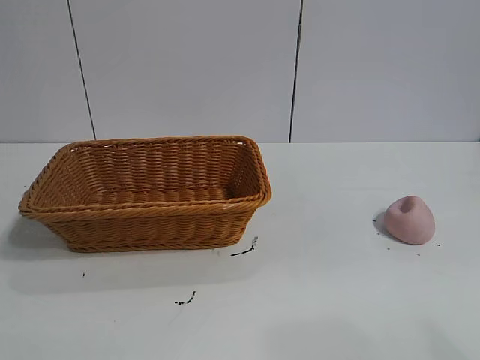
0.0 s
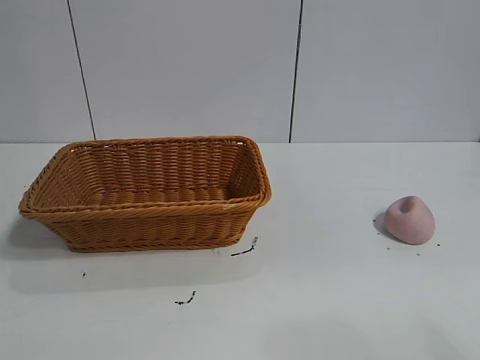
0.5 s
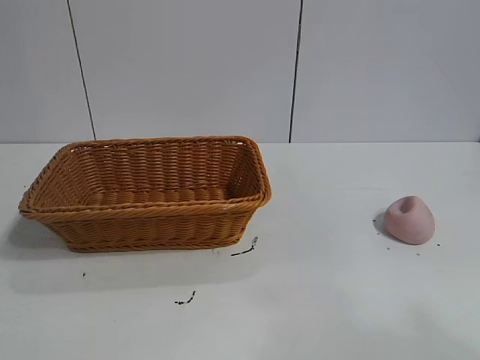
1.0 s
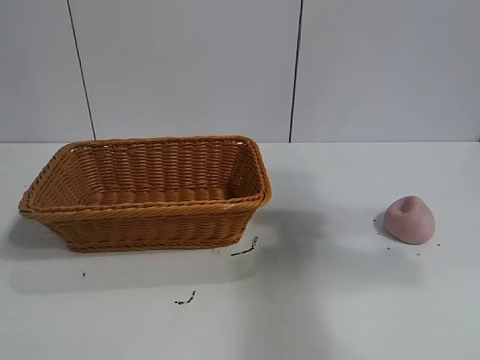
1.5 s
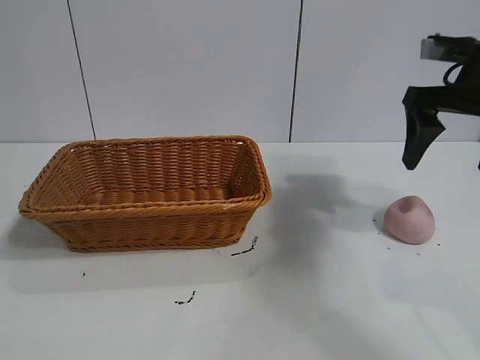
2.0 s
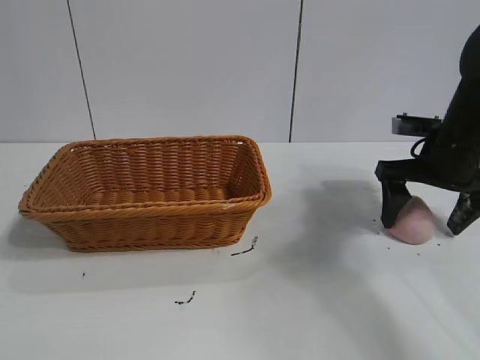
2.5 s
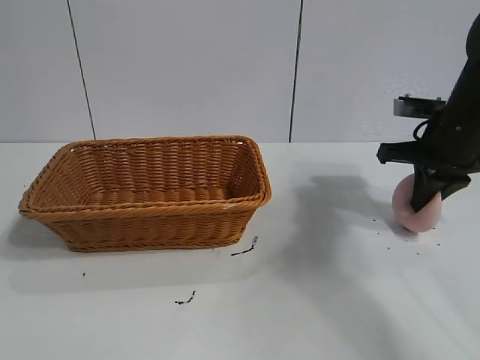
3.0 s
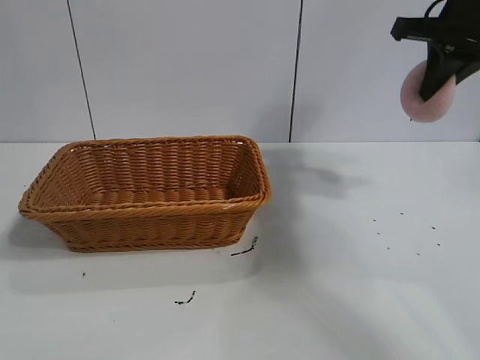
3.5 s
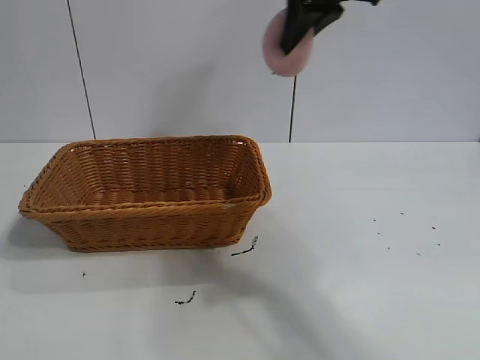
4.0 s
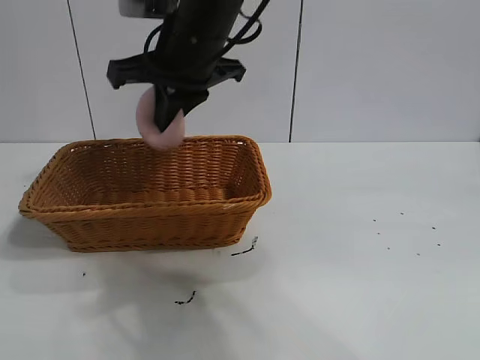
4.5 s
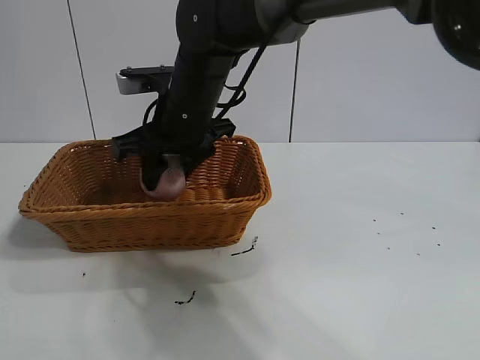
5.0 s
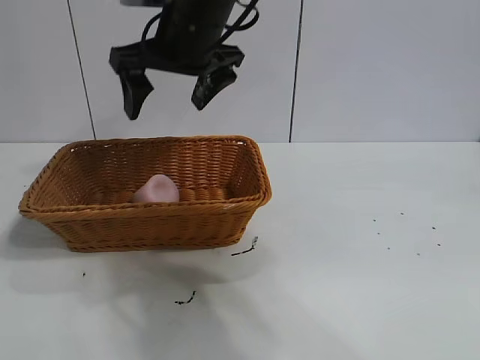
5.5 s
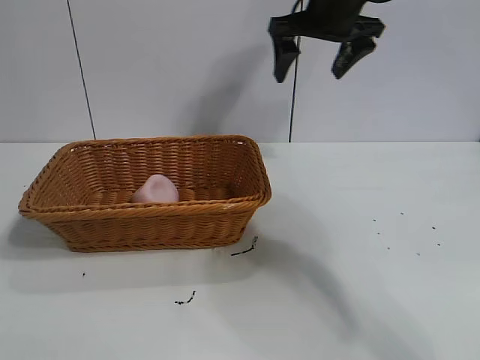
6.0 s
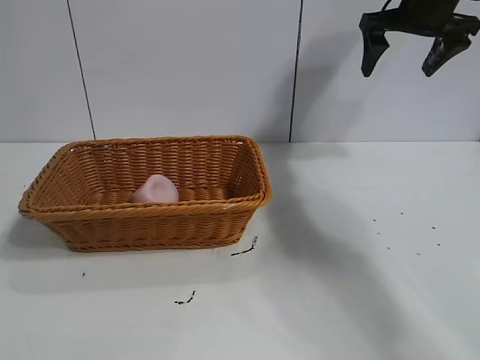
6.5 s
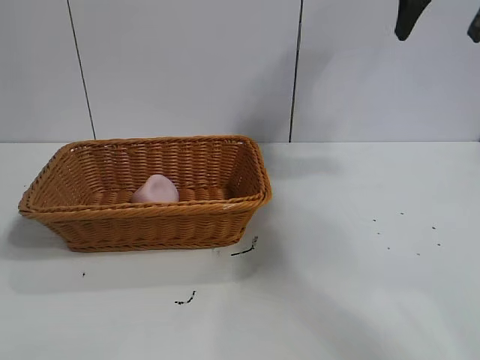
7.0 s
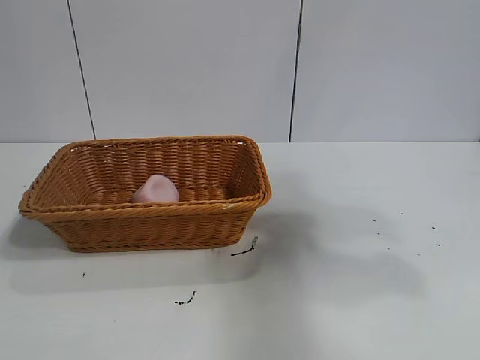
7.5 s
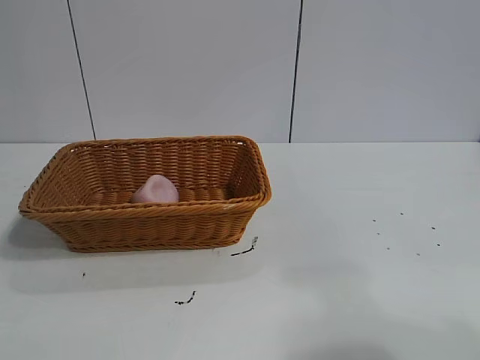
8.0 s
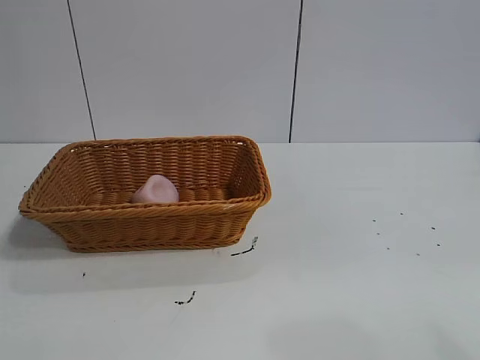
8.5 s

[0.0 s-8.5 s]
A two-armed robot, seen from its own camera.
Task of the whole recording: pick up the peach and put it into the basket.
Step, 1.0 to 2.5 s: Grasp the peach with right gripper.
Step, 3.5 to 5.0 s: Place the peach in the basket with right gripper.

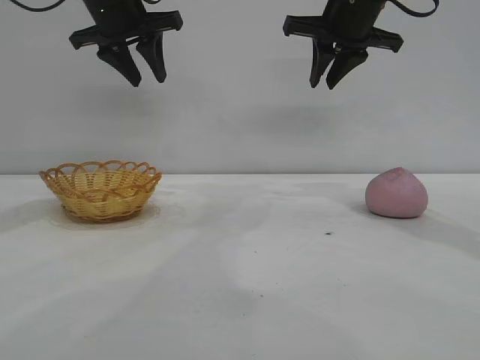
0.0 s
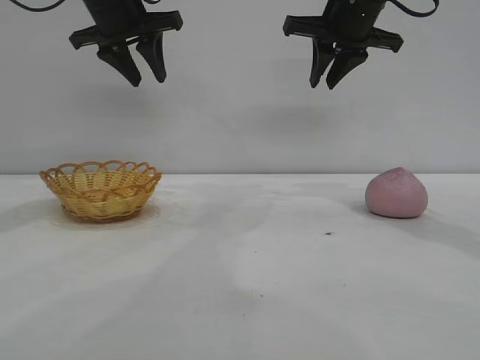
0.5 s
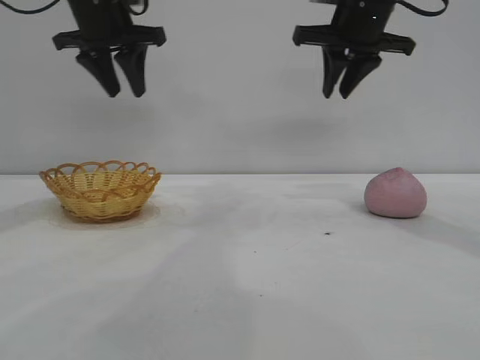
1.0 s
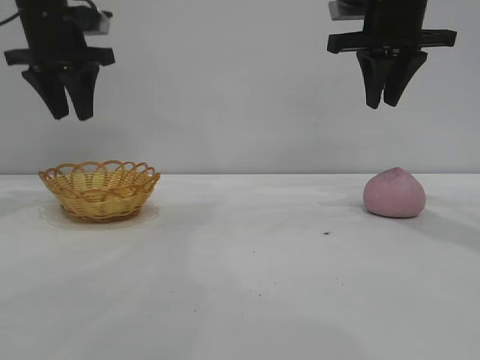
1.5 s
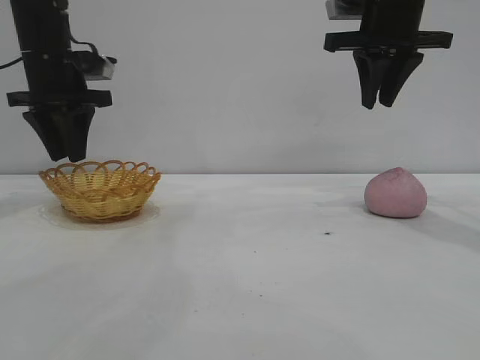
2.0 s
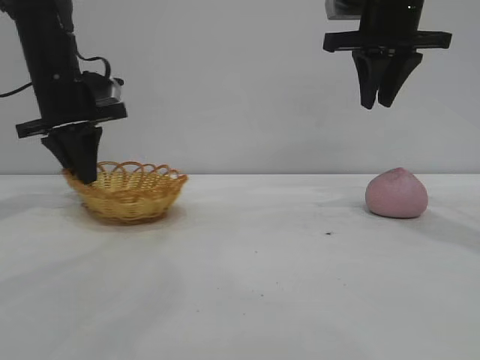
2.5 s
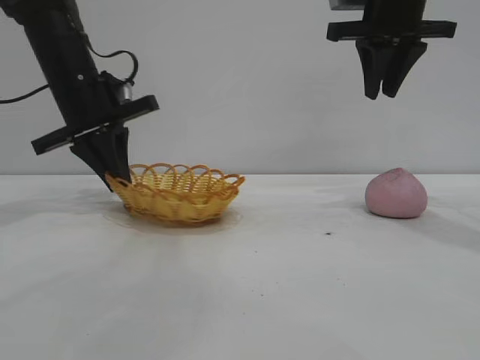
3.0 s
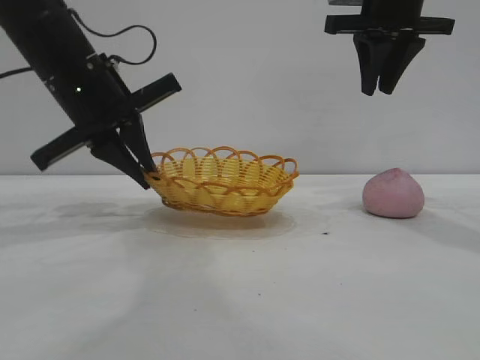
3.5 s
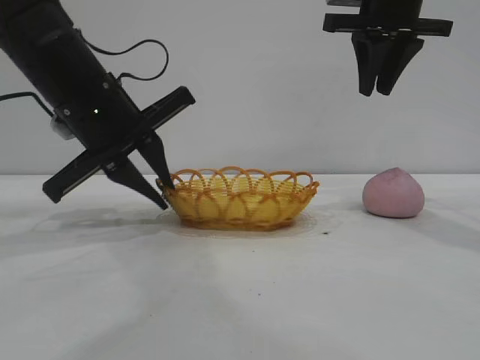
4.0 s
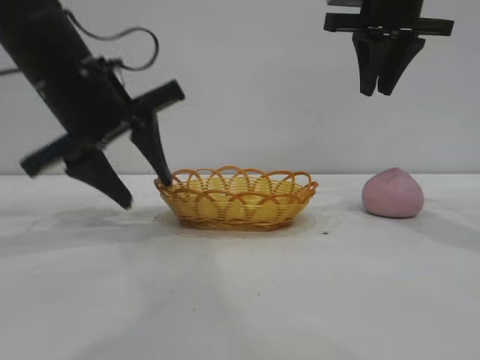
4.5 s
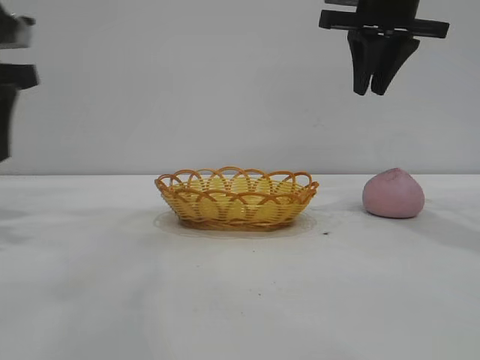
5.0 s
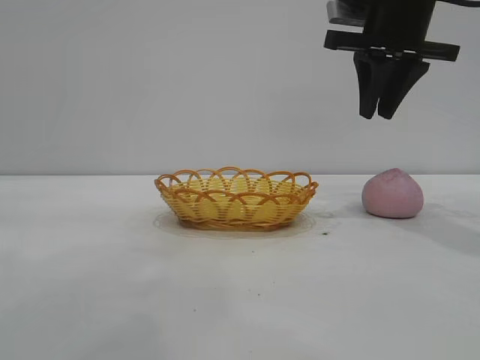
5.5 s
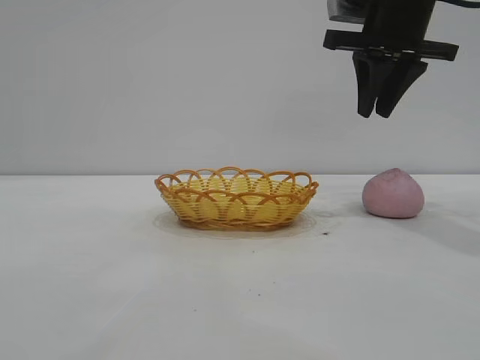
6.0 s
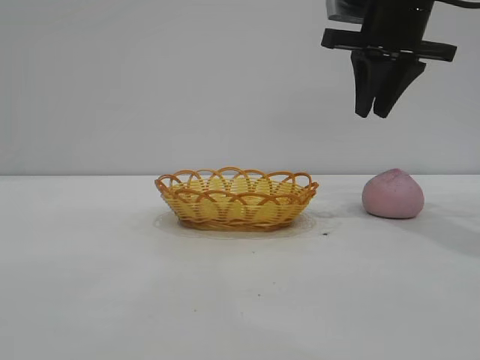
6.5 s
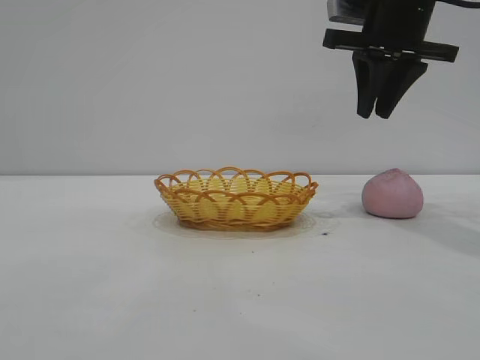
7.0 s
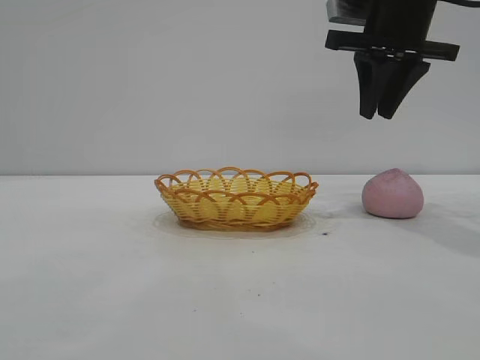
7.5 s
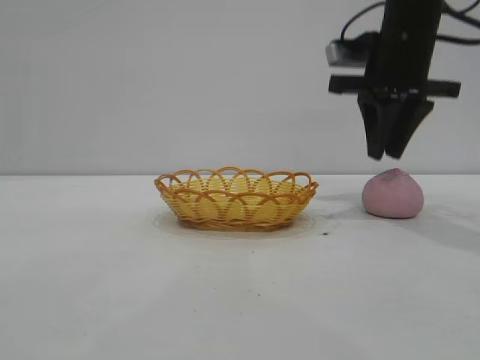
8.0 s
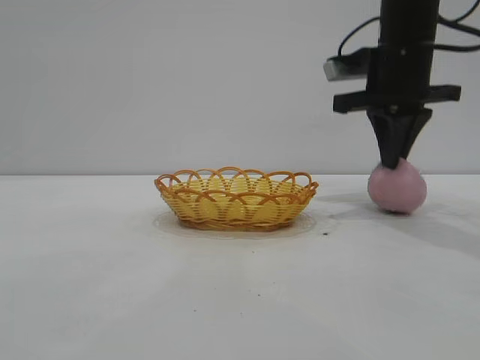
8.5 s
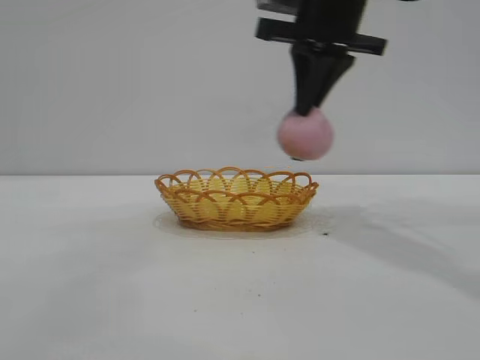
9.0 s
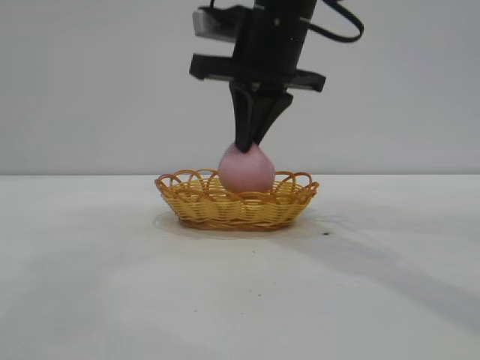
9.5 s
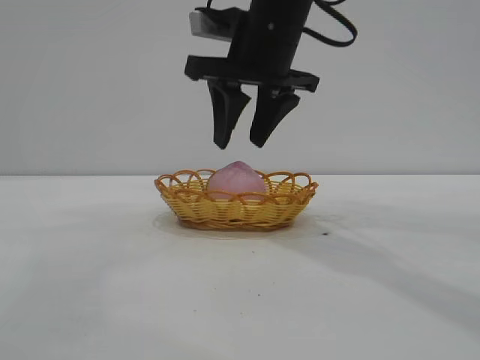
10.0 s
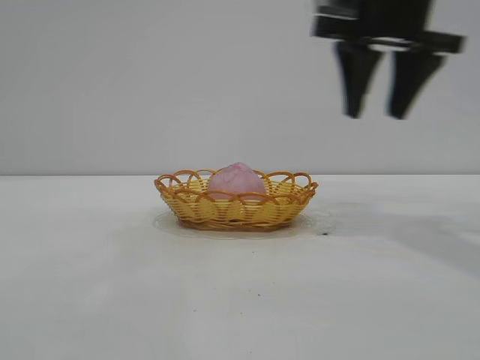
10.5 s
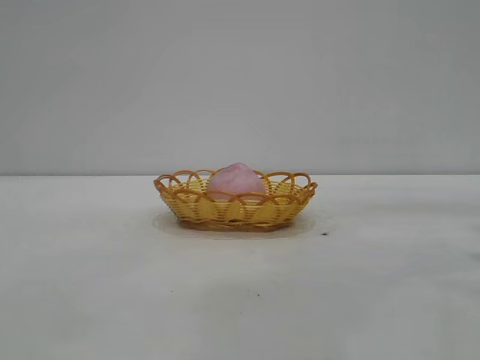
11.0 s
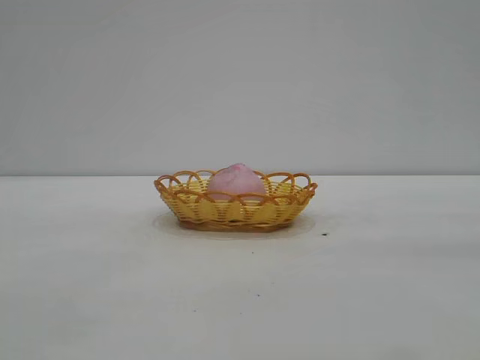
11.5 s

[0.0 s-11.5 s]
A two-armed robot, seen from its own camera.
Task of the whole recording: pick up the peach and put it into the basket.
Step, 0.0 to 4.5 s: Move the basket to the center of view.
Step, 5.0 to 8.5 s: Pick up the peach.
Step, 9.0 to 10.0 s: place the peach into the basket.

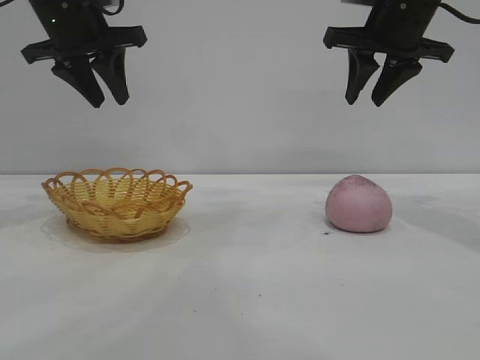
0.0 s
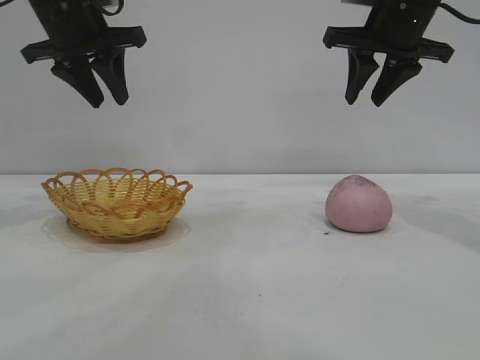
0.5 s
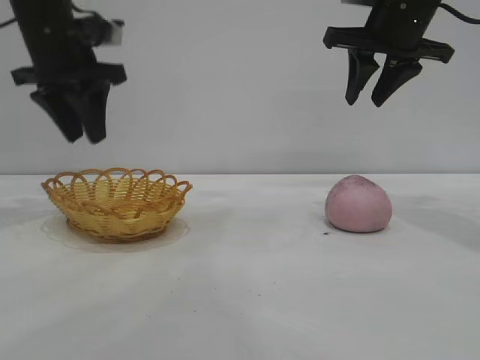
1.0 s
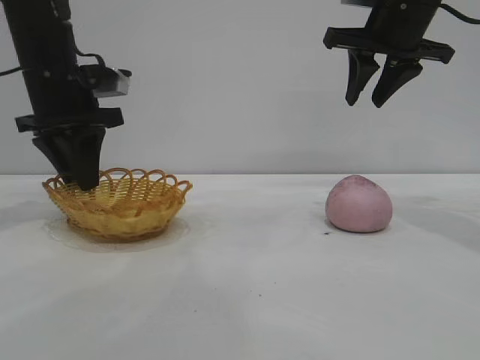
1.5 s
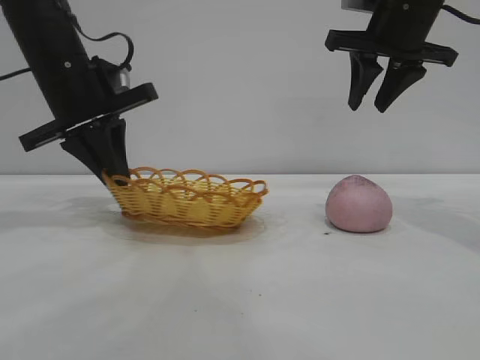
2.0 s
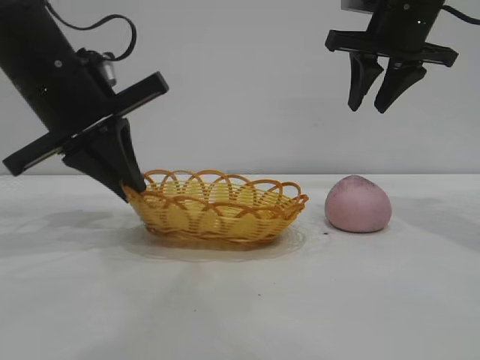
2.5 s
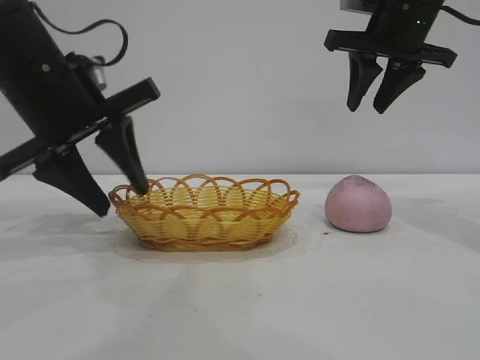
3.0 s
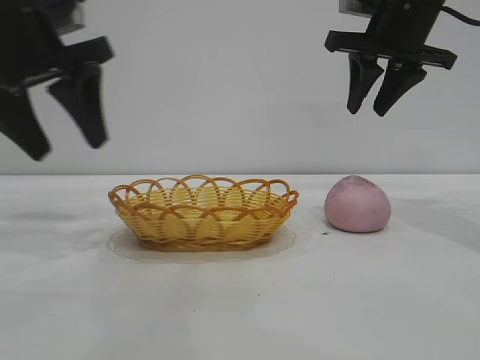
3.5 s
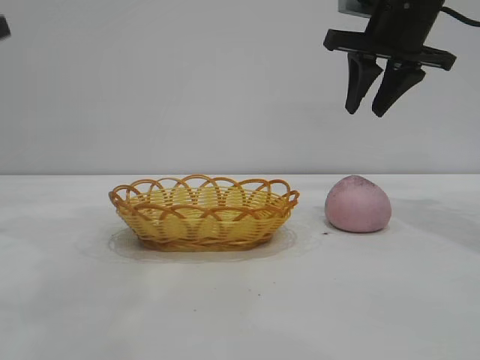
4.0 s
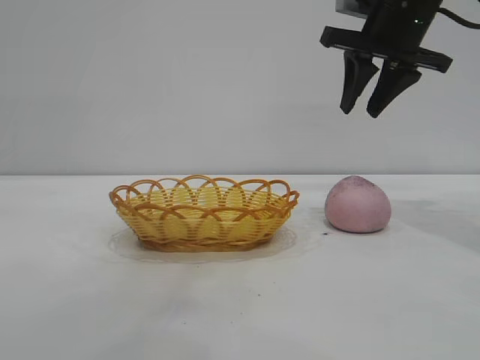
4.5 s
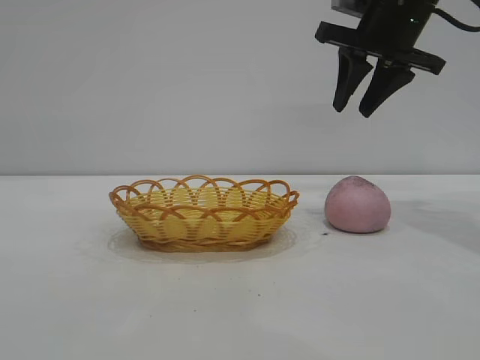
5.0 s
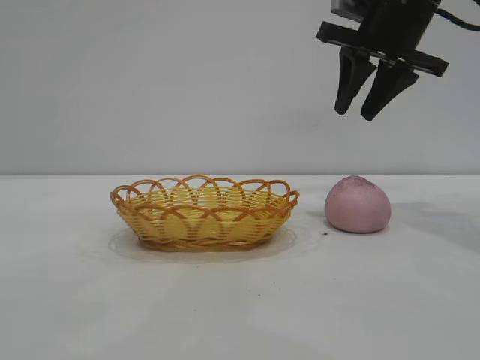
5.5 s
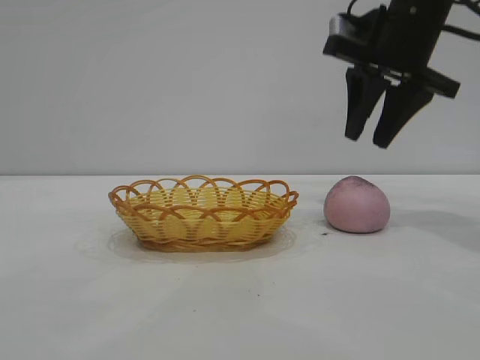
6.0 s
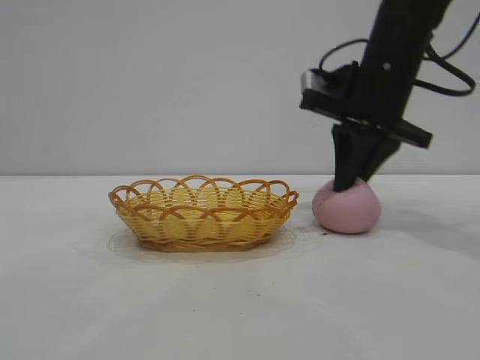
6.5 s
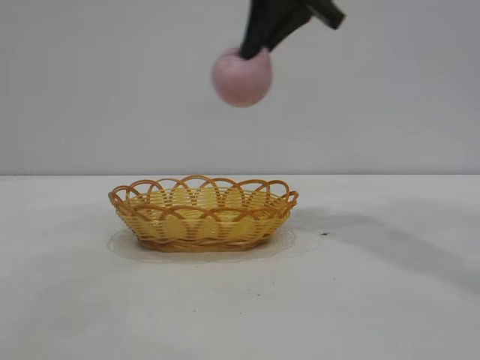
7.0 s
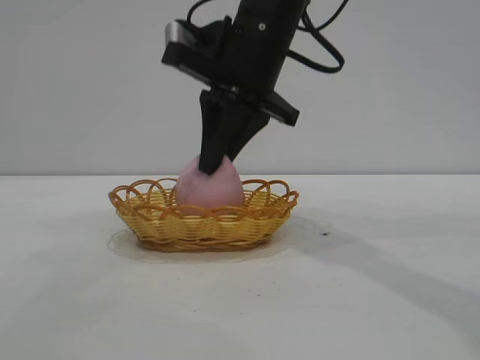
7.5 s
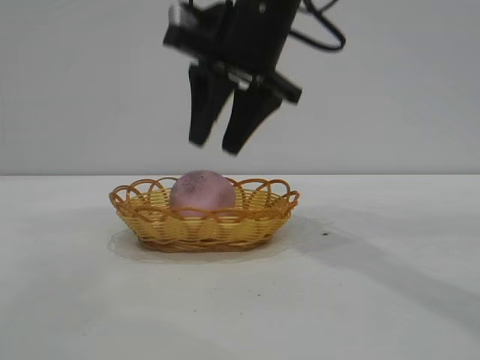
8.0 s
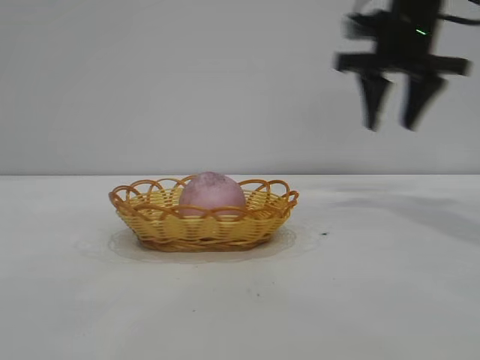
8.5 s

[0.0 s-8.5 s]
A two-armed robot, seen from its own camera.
Task of the whole recording: pick up the peach and put it into the basket.
Step, 0.0 to 3.0 s: Move the basket to the center of view.
Step, 3.5 to 6.5 s: Pick up the peach.
Step, 7.0 to 8.0 s: place the peach into the basket.
